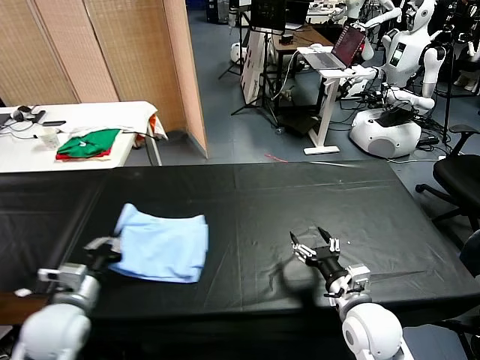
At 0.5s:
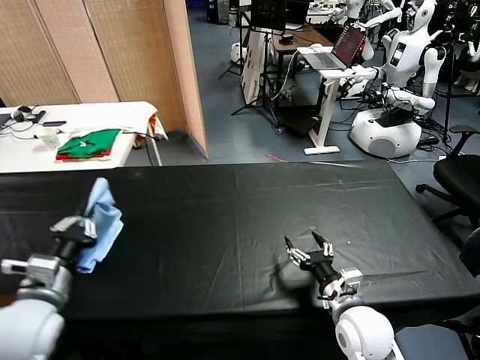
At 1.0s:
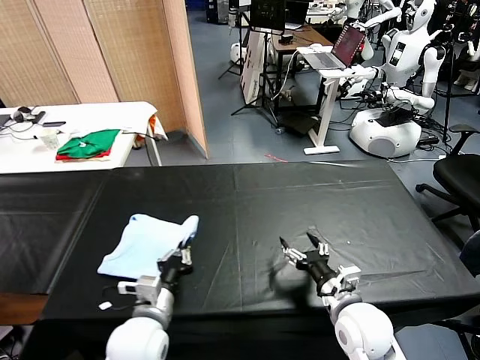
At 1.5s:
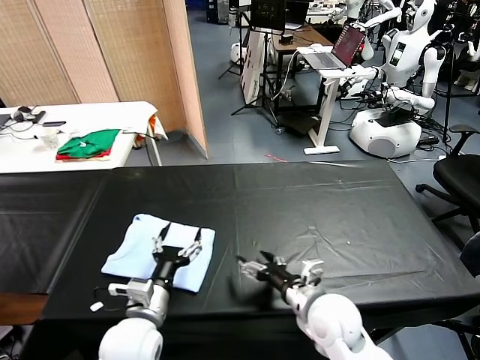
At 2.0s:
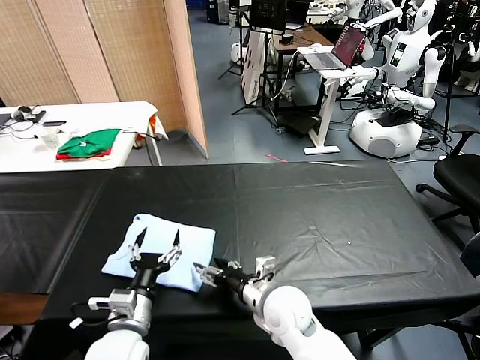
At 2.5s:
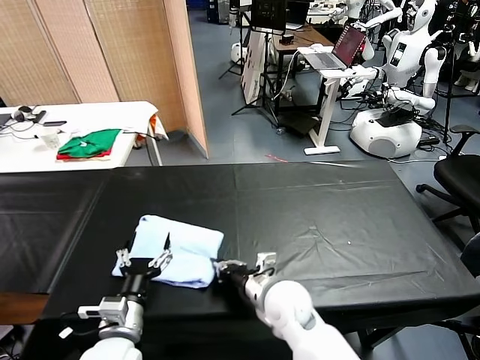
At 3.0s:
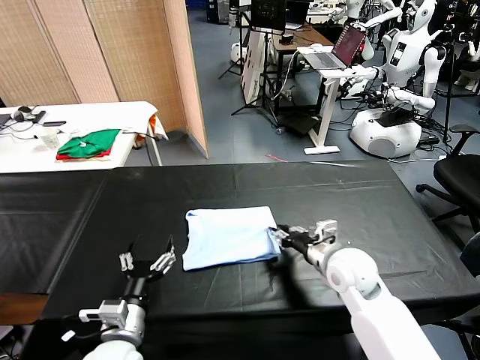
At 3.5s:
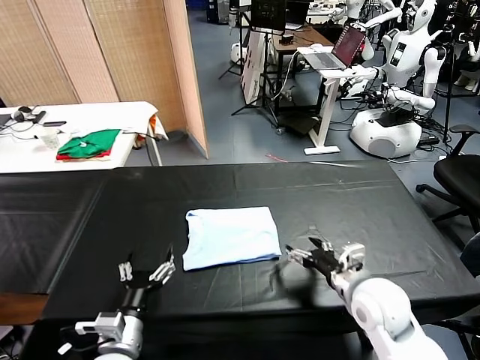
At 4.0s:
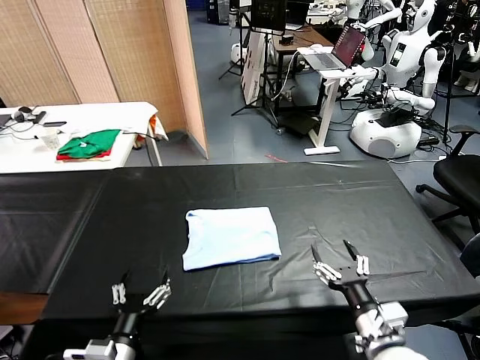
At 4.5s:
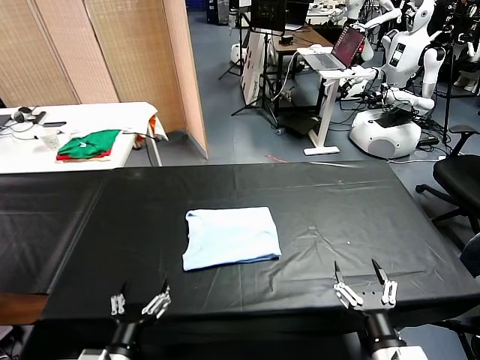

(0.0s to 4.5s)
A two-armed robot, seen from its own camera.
Task of the whole recording: fold and organize the clothes.
Step, 1.5s - 3.0s: Drag the clothes to the center of the table.
0.0s - 2.0s: The right gripper travels to the left by about 15 cm, while the left gripper travels to the right by approximately 10 cm, and opens up.
2.0s - 4.5s: The left gripper shifts roughly 10 cm backward, while the right gripper heads backward and to the right, covering about 25 cm, and closes and opens again.

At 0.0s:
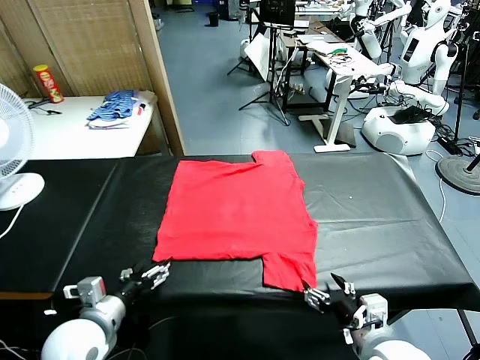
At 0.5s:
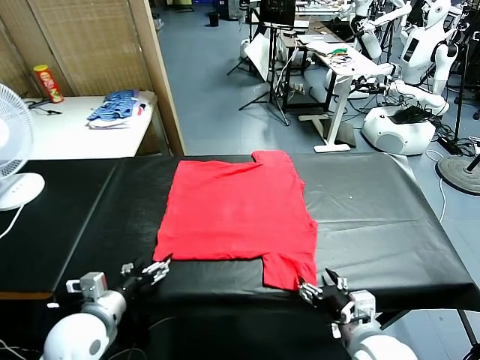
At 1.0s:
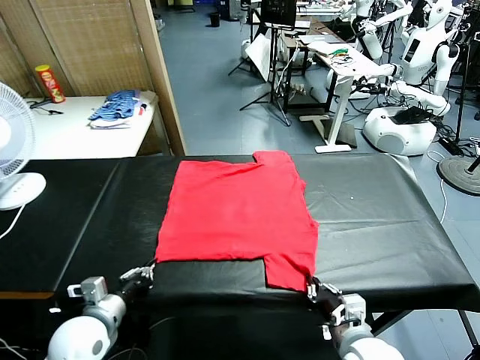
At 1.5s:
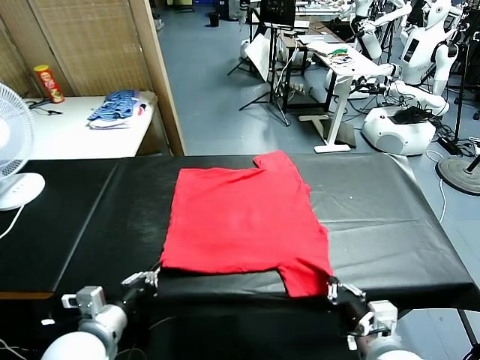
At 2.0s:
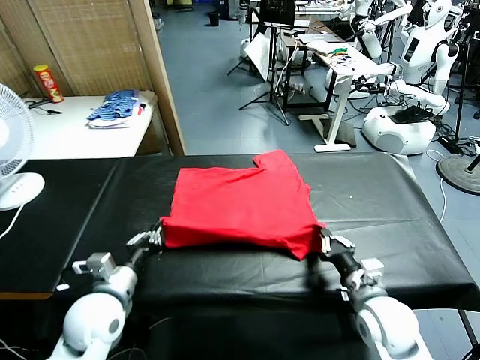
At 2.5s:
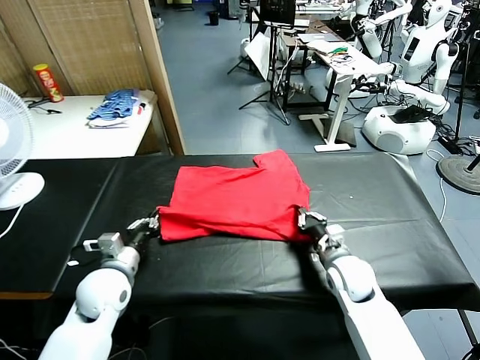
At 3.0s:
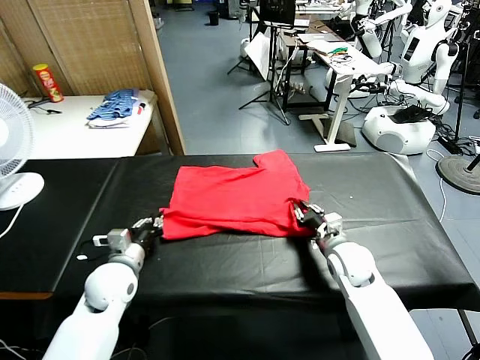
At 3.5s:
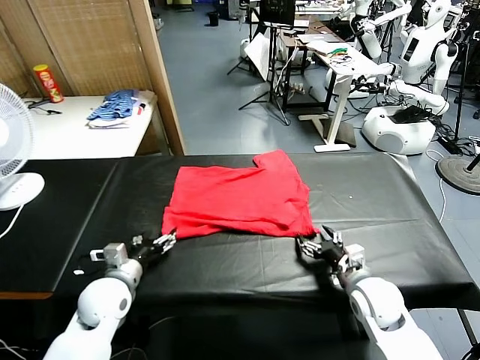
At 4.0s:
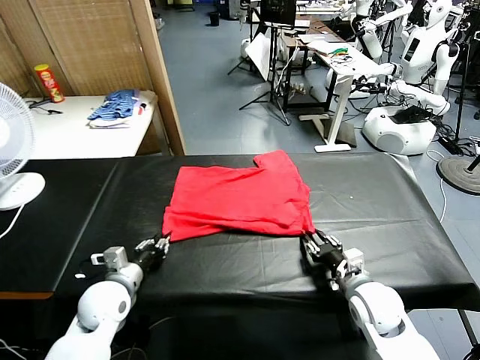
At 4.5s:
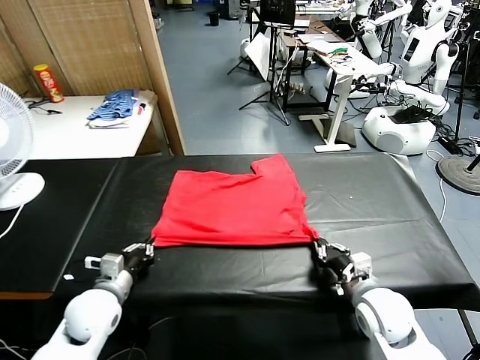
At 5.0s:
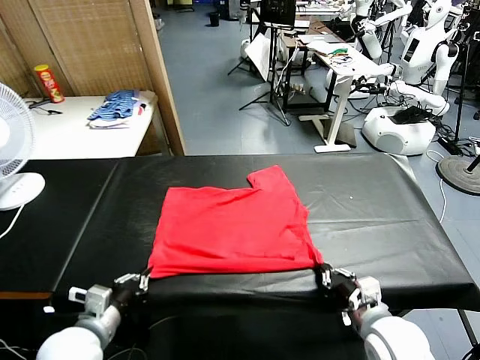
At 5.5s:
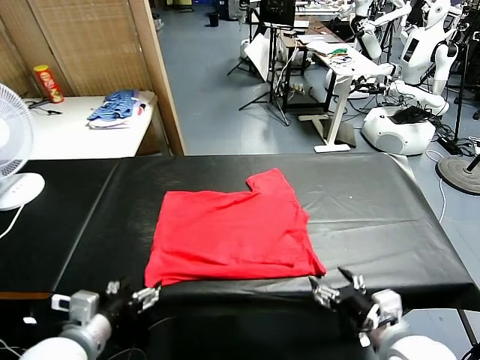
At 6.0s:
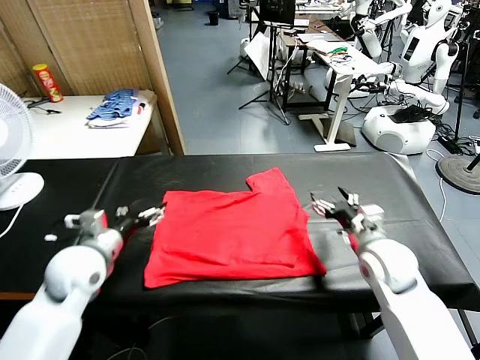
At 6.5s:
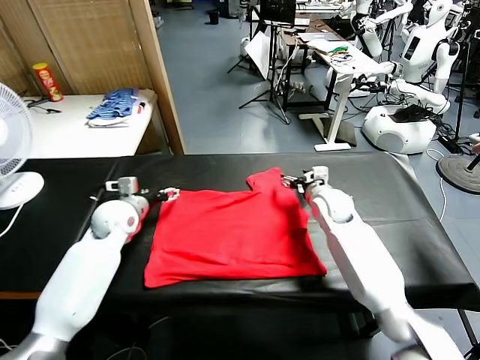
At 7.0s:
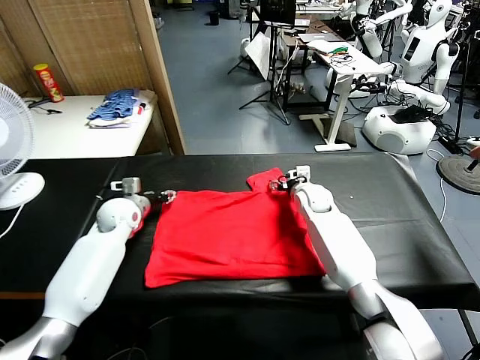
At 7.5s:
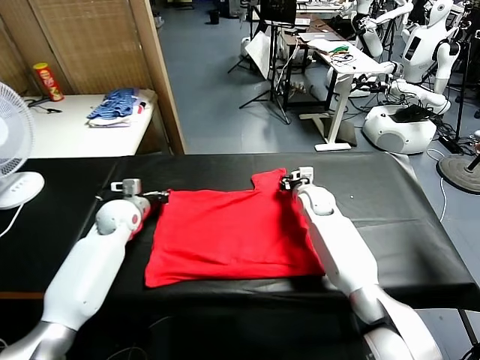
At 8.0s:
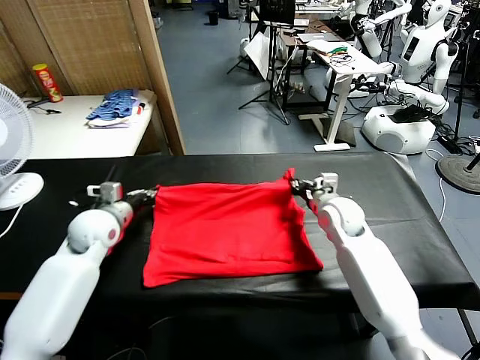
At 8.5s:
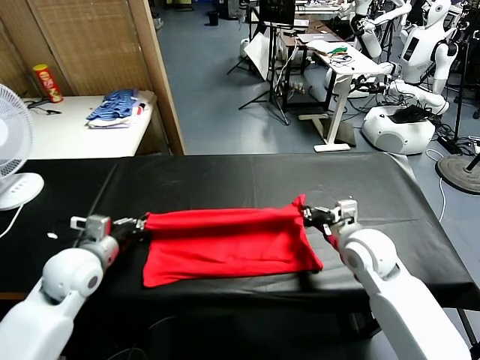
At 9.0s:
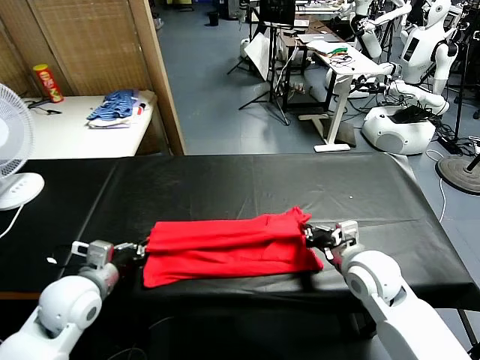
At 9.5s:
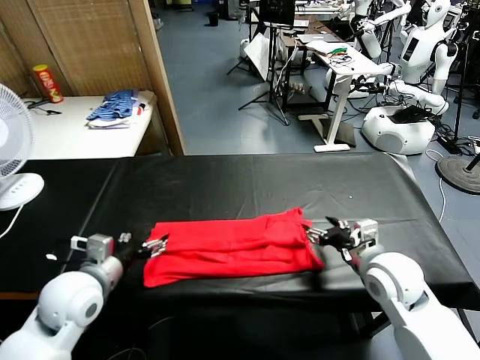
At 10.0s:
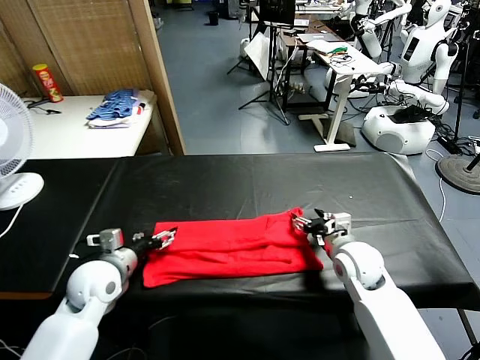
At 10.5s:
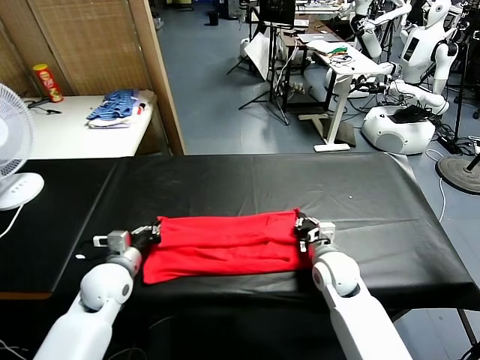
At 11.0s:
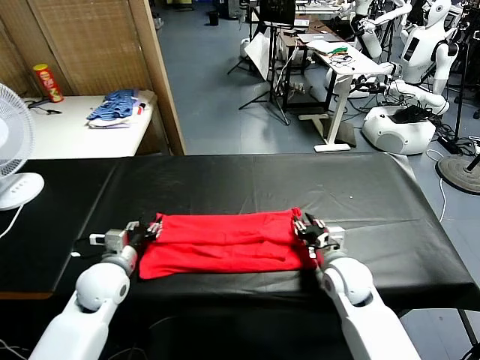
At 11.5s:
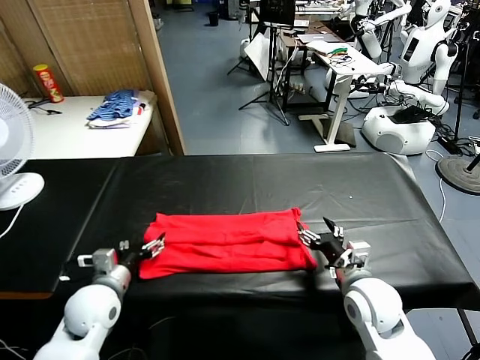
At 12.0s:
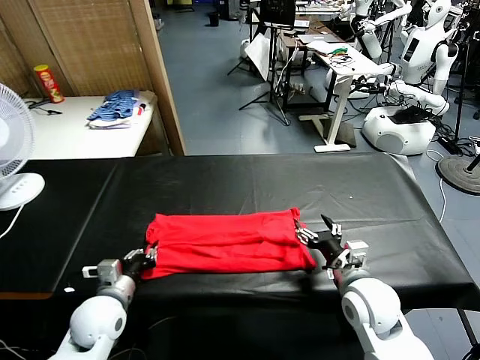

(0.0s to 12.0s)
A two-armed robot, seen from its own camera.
Task of the whole recording: fold and organize the clothes.
Step, 0.0s - 1.0s: use both grippers simultaneously to clamp the lower edge of the clothing fabric.
Step, 1.5s - 3.0s: use both grippers to drag the lower edge of the fabric forward and fold it over the upper edge.
Step, 3.5s - 5.0s: Drag the clothes downward with both gripper.
Step, 5.5s - 7.5s: use both grippers simultaneously to clamp the upper edge of the clothing fabric.
Step, 8.0s - 9.0s: use both grippers to drag the upper edge of the fabric backward and fold it over the lower edge.
2.0s - 4.0s: The right gripper reaches about 10 cm forward, then returns, and opens and closes again. The left gripper moves downward, roughly 5 cm, and opens, then closes once more.
4.0s - 6.0s: The left gripper is displaced upward by about 10 cm, reaches roughly 10 cm backward, then returns, and opens. Meanwhile the right gripper shifts roughly 15 cm forward and upward, and opens up.
6.0s - 8.0s: The right gripper travels forward and back again, about 15 cm each way, and closes its fingers; the left gripper heads forward, covering approximately 5 cm, and closes.
8.0s - 10.0s: The left gripper shifts some 10 cm backward, and opens its fingers; the right gripper heads downward and backward, covering roughly 10 cm, and opens its fingers.
10.0s - 12.0s: The left gripper is displaced backward by about 5 cm, and closes its fingers; the right gripper travels backward by roughly 10 cm, and opens.

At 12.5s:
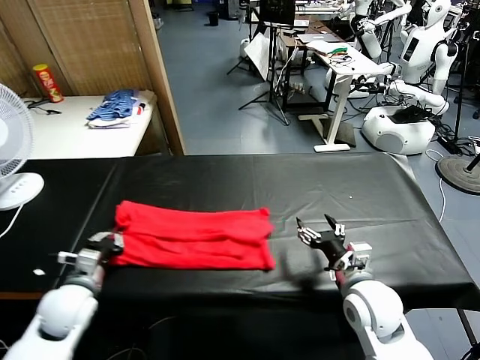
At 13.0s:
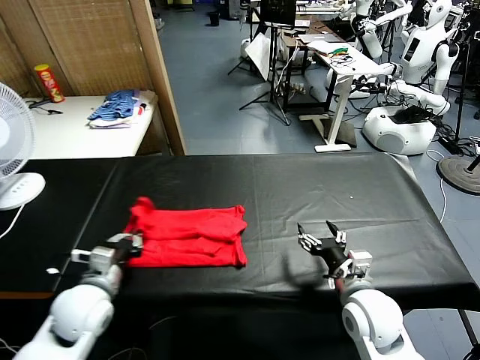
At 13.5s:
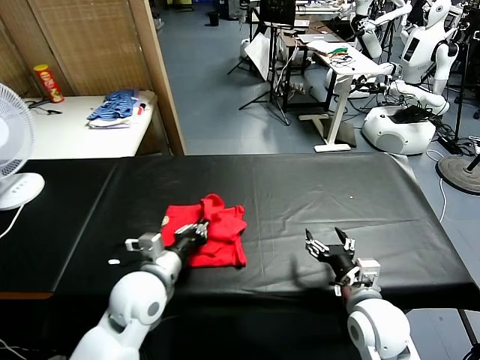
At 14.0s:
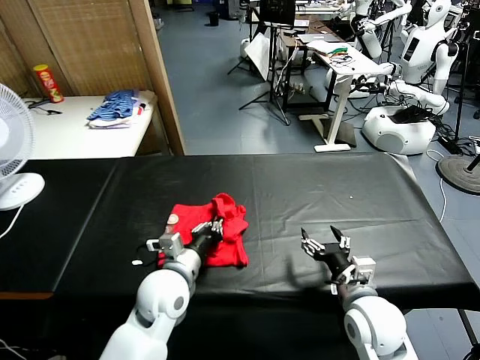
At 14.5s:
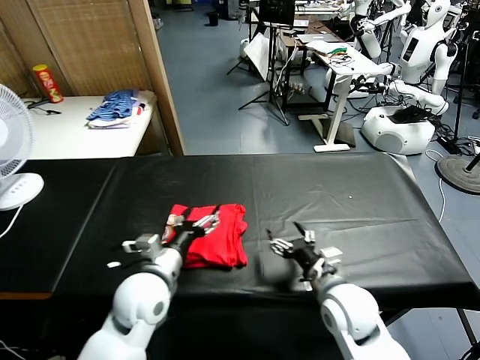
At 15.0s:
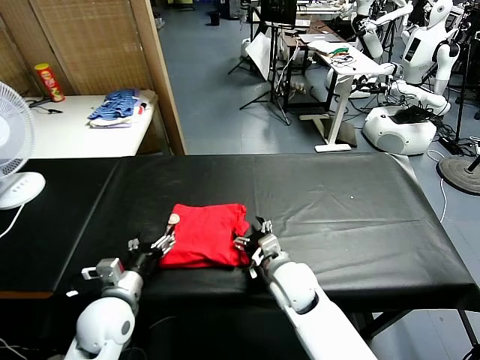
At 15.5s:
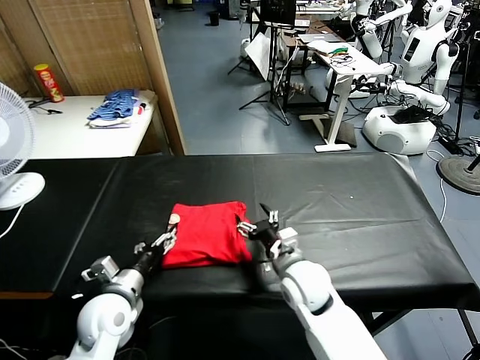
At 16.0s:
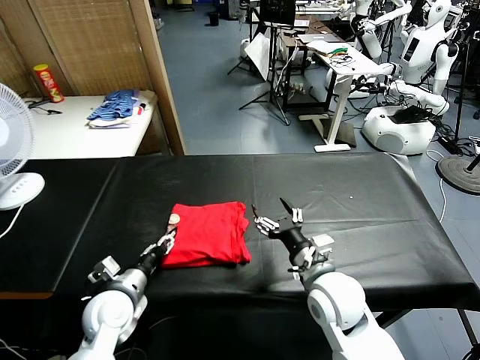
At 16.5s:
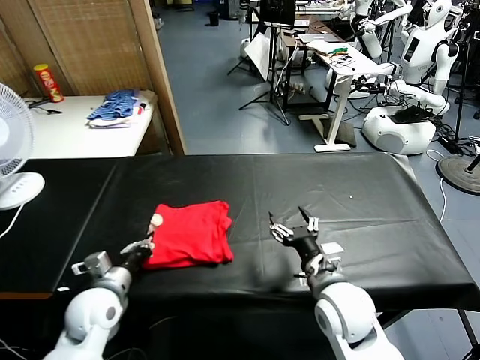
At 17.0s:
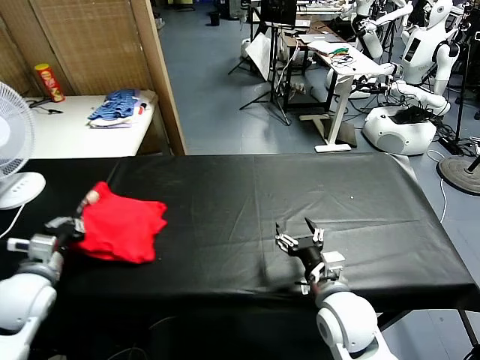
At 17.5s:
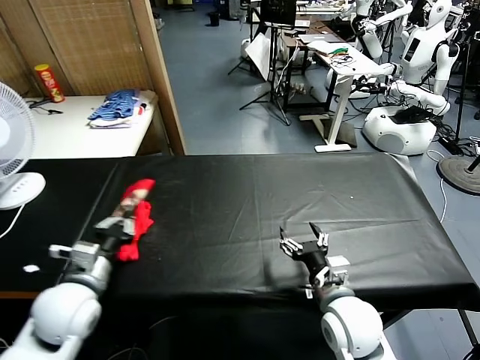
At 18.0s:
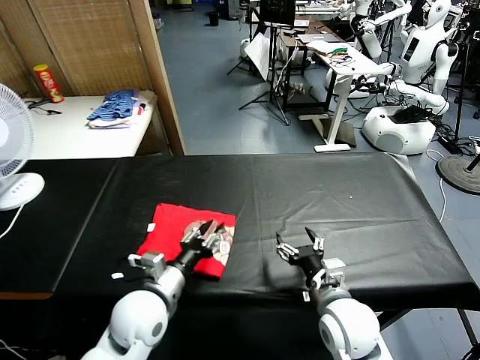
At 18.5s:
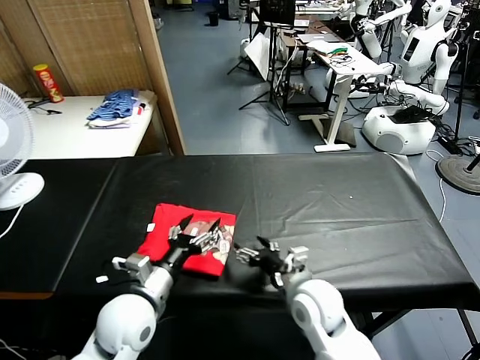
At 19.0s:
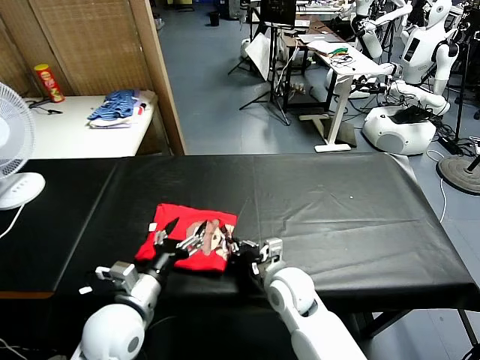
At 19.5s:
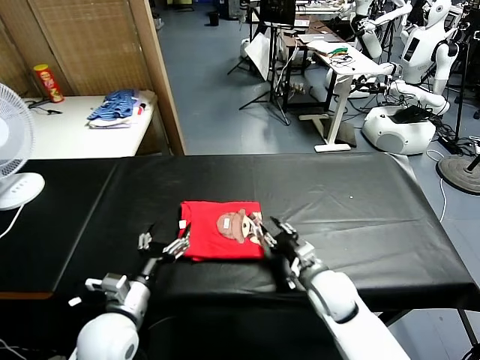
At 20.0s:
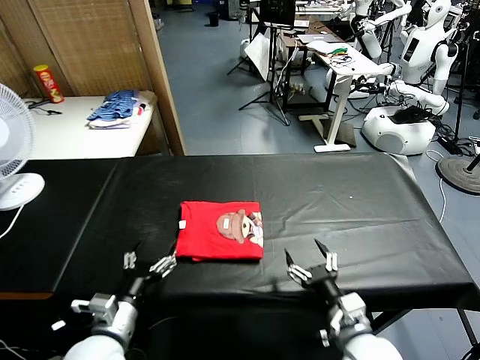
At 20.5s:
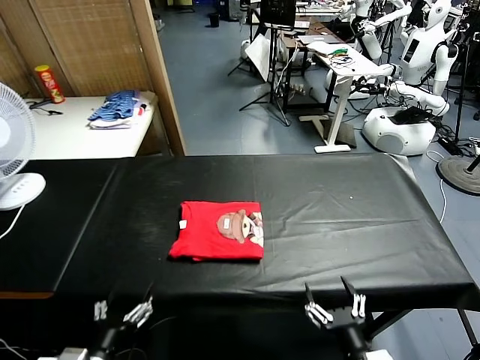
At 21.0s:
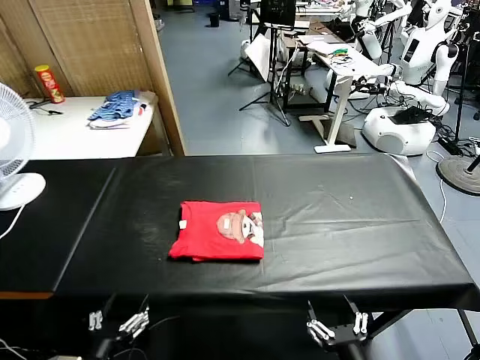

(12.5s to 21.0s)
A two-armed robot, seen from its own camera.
Task of the whole recording: fold and organize the clothes.
Step, 12.5s - 14.0s: use the left gripper to drag the left edge of the fabric to the left and folds it over the right edge.
Step, 14.5s - 18.0s: Flip the folded clothes over with left gripper.
Step, 18.5s - 19.5s: Drag the clothes to the center of the table.
12.5s - 14.5s: The left gripper shifts roughly 15 cm to the right, and opens its fingers, while the right gripper is displaced to the left by some 5 cm.
14.5s - 16.5s: The right gripper moves some 10 cm to the left and comes back. The left gripper shifts about 10 cm to the left and downward, and closes.
16.5s - 19.0s: The left gripper moves to the right, some 10 cm, and opens; the right gripper heads to the left, downward and forward, covering roughly 10 cm, and closes its fingers.
19.0s - 21.0s: The right gripper shifts roughly 30 cm backward and to the right, and opens. The left gripper shifts roughly 15 cm backward.
